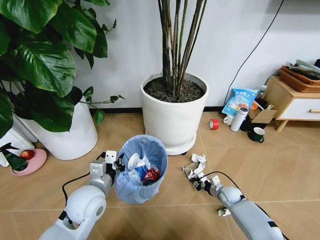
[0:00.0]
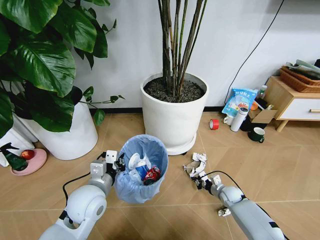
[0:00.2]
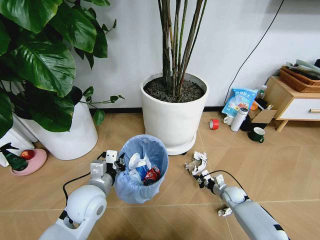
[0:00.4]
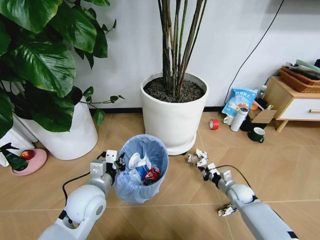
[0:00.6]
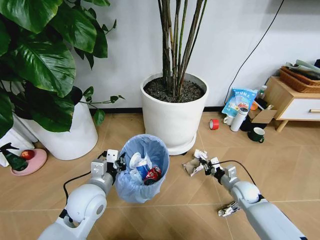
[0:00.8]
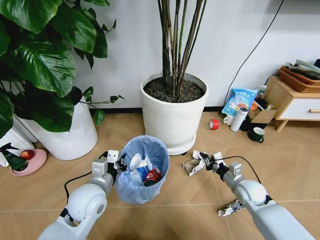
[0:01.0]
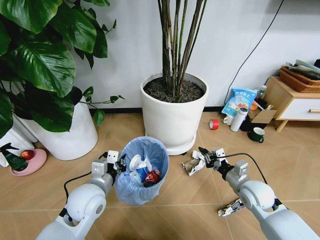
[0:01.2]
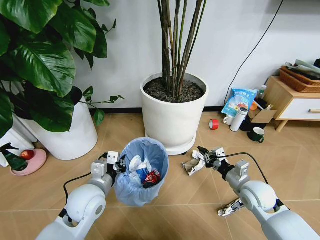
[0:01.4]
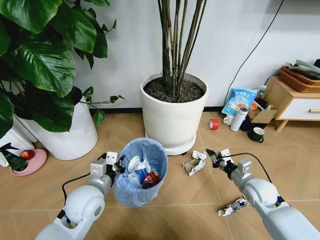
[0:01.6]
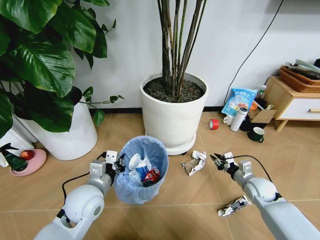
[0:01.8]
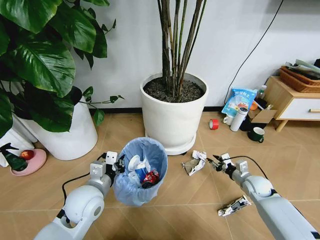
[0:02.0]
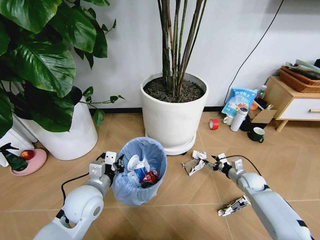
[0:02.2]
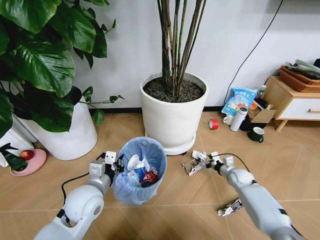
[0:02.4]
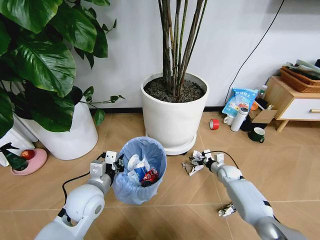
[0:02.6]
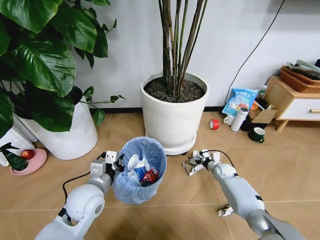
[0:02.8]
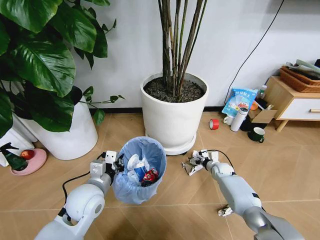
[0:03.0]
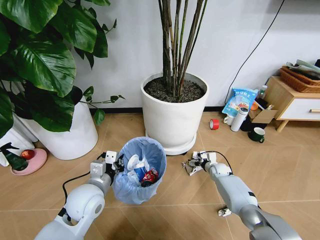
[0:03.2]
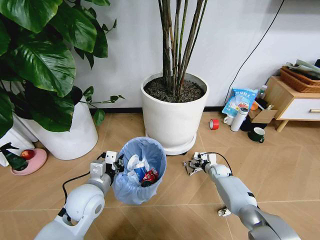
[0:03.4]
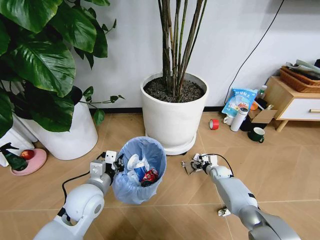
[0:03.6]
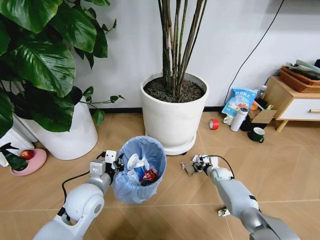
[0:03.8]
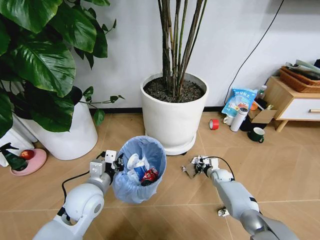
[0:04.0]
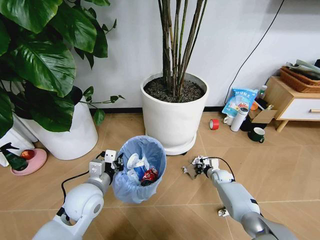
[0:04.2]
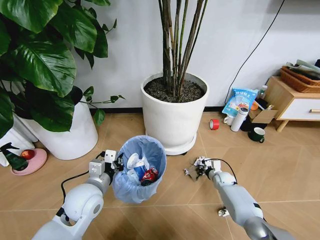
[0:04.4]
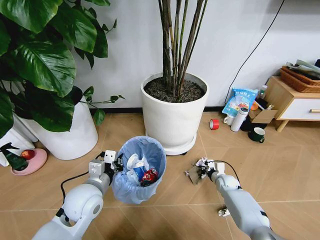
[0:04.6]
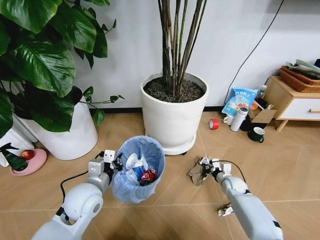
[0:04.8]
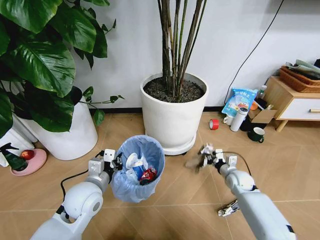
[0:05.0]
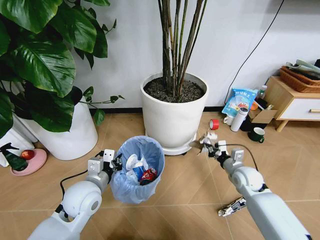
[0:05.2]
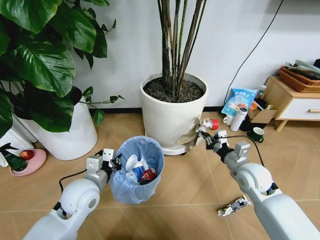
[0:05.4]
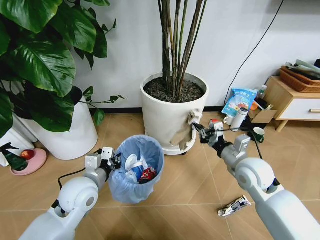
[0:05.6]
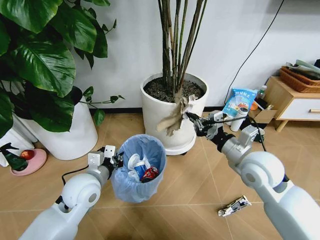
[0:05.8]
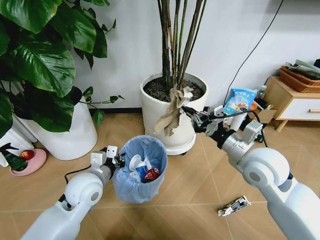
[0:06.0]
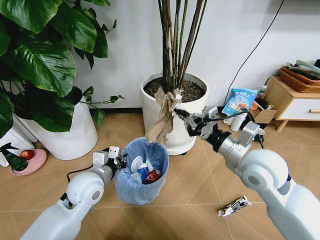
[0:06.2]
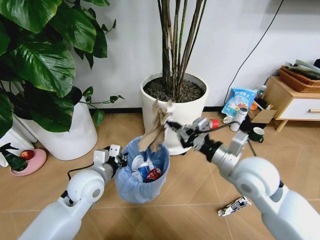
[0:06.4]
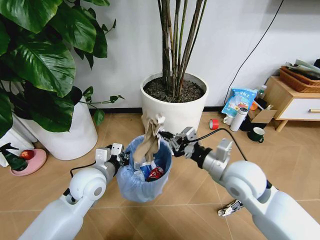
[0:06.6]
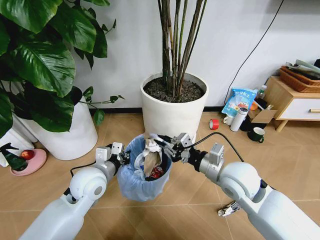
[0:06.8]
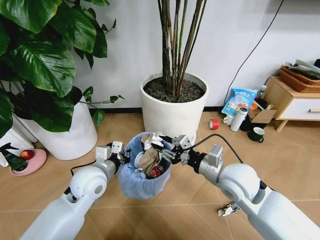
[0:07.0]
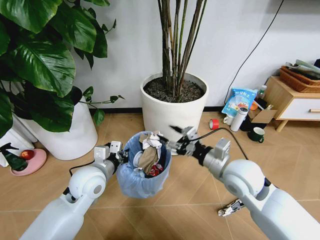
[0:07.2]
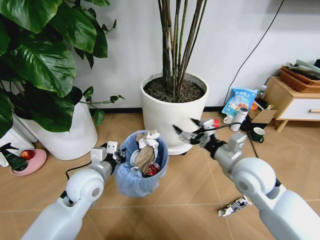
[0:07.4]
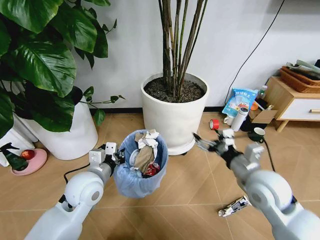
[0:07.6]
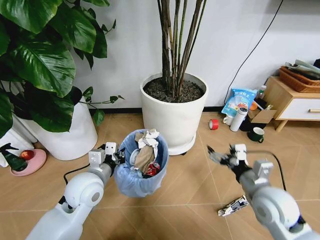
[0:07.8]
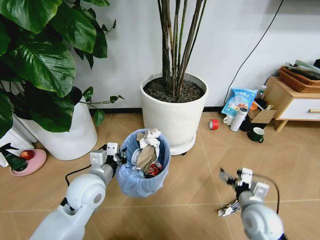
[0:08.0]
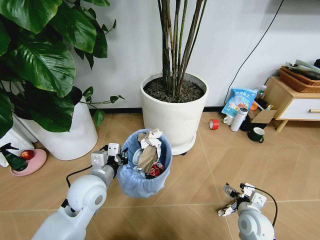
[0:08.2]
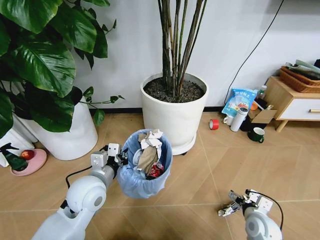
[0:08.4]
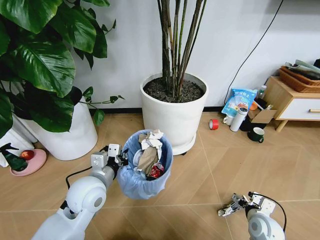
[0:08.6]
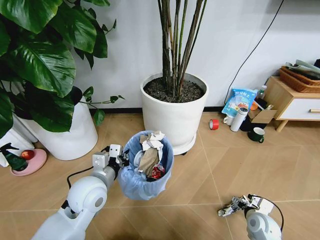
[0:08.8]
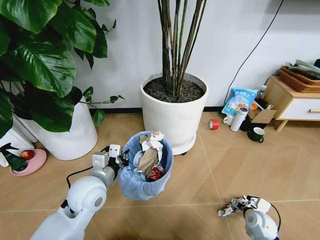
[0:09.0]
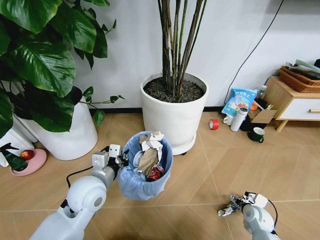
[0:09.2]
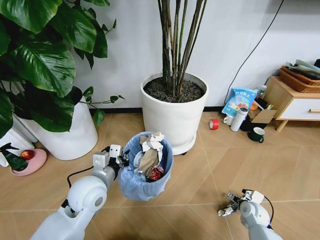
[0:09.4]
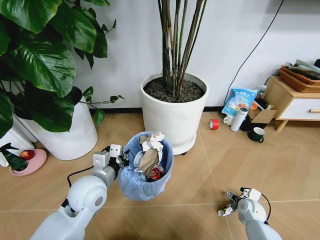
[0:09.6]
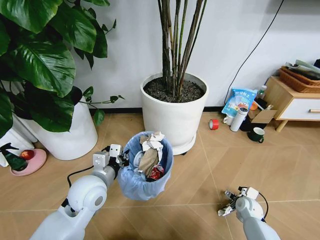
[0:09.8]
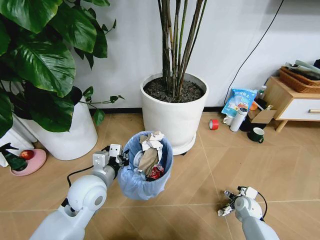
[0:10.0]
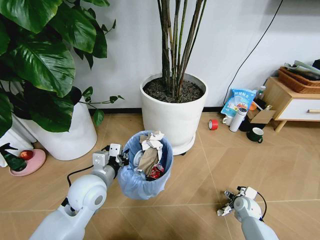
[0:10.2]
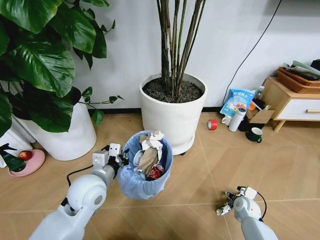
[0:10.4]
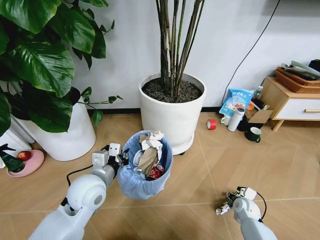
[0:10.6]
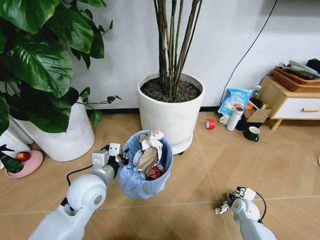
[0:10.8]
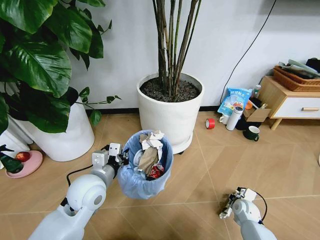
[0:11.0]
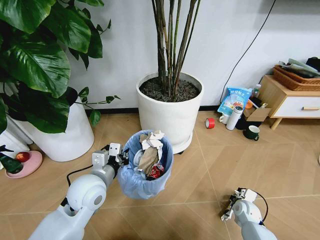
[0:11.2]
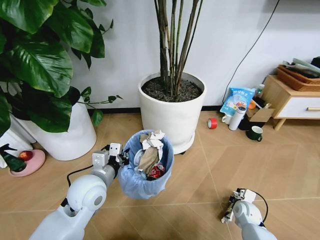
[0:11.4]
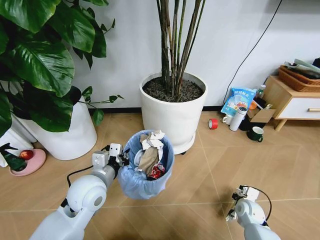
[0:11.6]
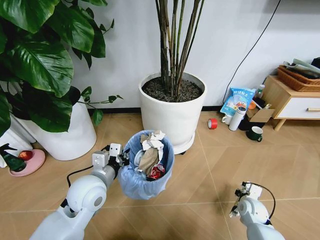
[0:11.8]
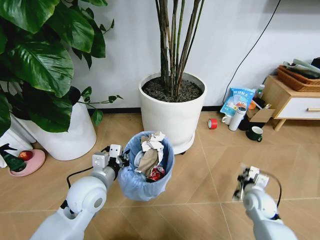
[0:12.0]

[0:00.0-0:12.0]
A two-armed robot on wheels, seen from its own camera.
Task of the whole recording: Pick up the trash bin and place the garbage on the floor into it.
0:00.0 to 0:01.6: The right gripper moves upward, approximately 20 cm.
0:01.6 to 0:03.0: The right gripper heads forward and downward, covering roughly 20 cm, and opens.
0:03.0 to 0:04.4: The right gripper closes.
0:04.4 to 0:06.0: The right gripper goes some 40 cm upward.
0:06.0 to 0:07.6: The right gripper shifts roughly 5 cm downward, and opens.
0:07.6 to 0:09.0: The right gripper is displaced downward by some 25 cm.
0:09.0 to 0:10.4: The right gripper goes about 5 cm forward.
0:10.4 to 0:12.0: The right gripper heads upward, covering some 10 cm, and closes up.

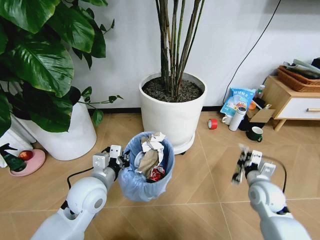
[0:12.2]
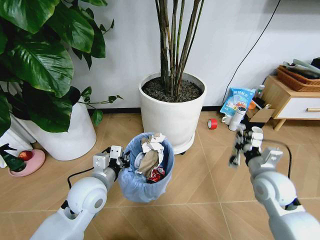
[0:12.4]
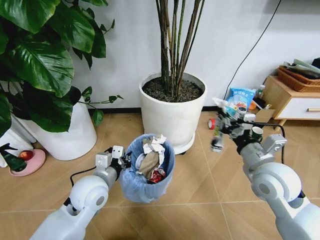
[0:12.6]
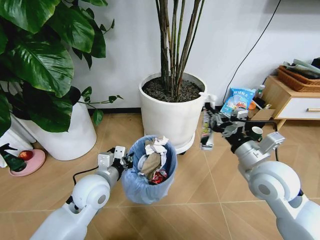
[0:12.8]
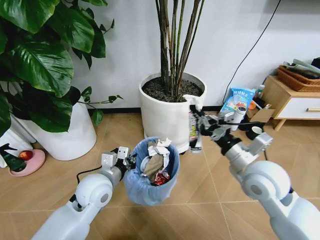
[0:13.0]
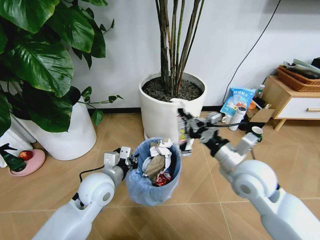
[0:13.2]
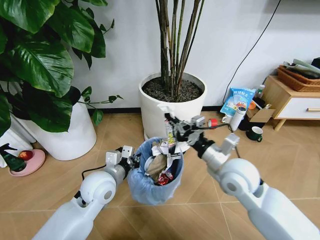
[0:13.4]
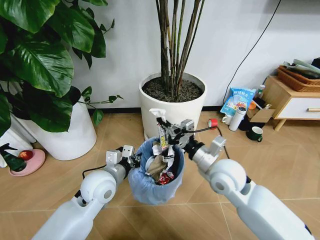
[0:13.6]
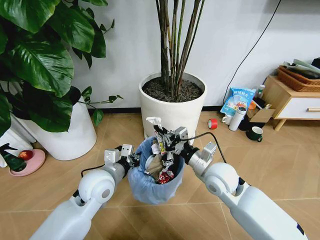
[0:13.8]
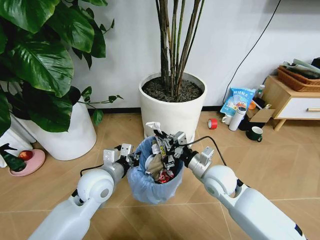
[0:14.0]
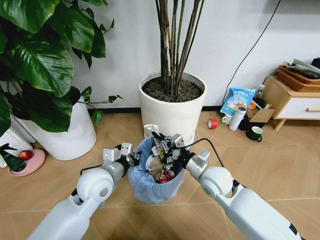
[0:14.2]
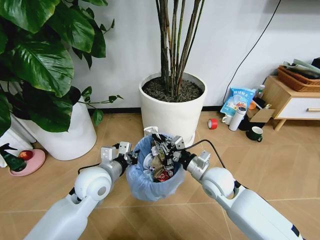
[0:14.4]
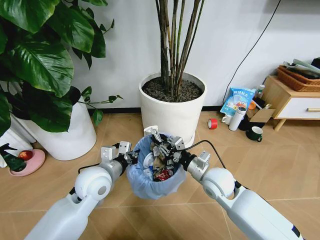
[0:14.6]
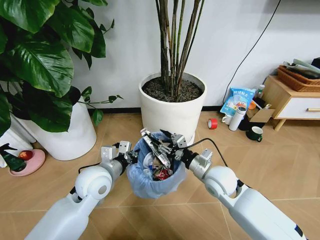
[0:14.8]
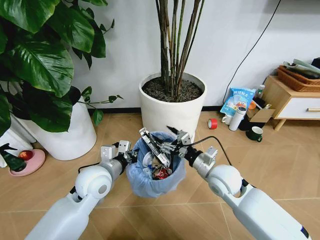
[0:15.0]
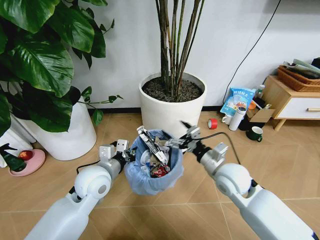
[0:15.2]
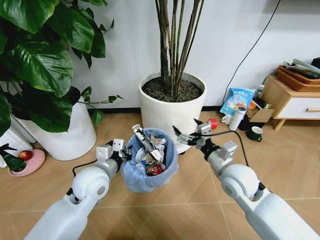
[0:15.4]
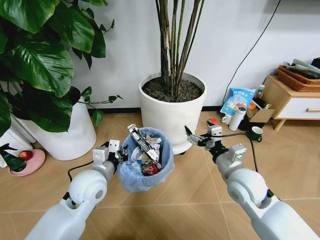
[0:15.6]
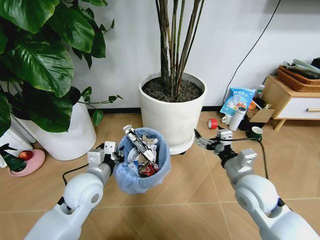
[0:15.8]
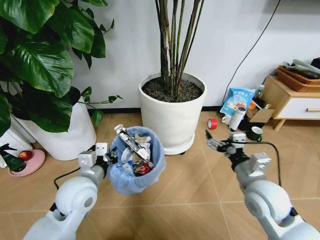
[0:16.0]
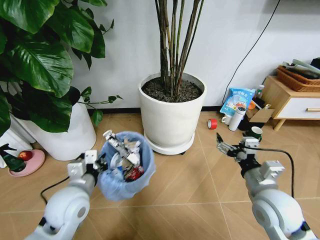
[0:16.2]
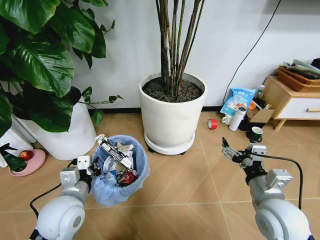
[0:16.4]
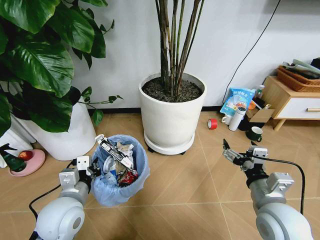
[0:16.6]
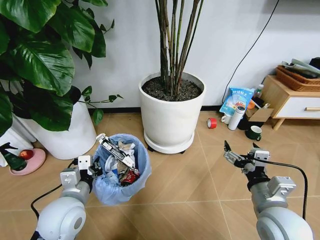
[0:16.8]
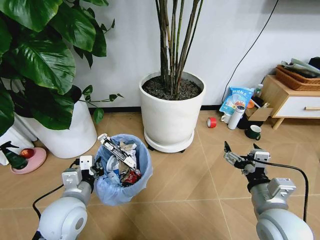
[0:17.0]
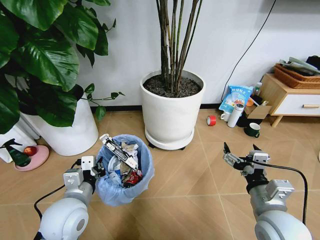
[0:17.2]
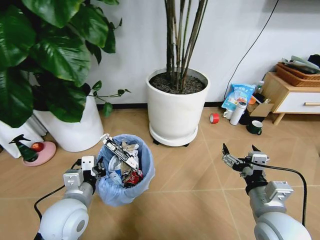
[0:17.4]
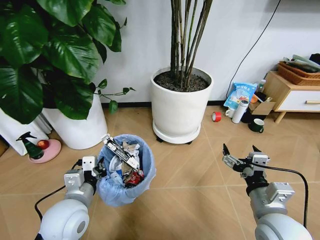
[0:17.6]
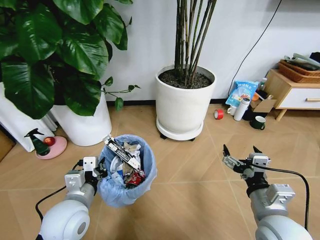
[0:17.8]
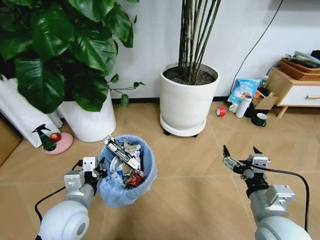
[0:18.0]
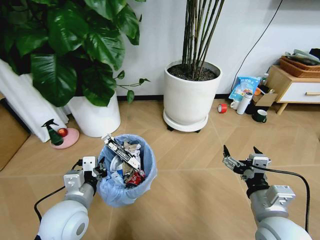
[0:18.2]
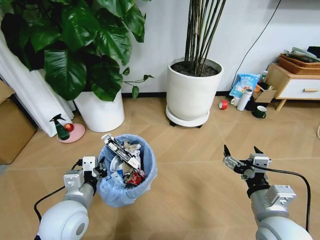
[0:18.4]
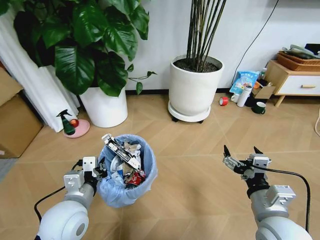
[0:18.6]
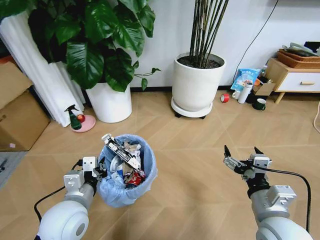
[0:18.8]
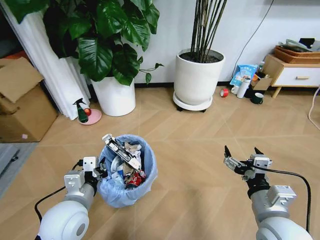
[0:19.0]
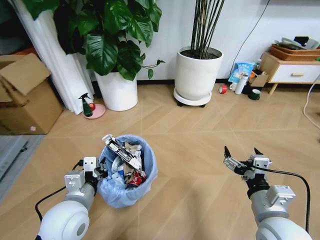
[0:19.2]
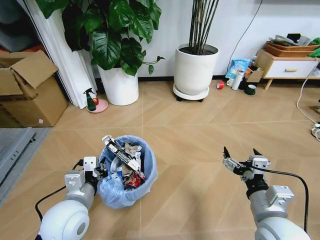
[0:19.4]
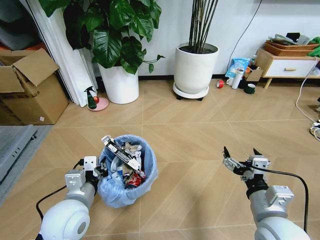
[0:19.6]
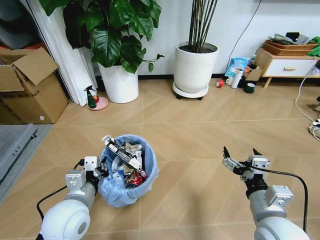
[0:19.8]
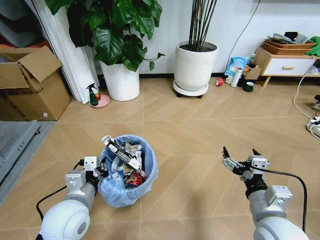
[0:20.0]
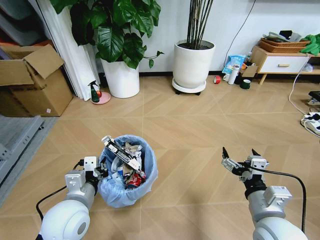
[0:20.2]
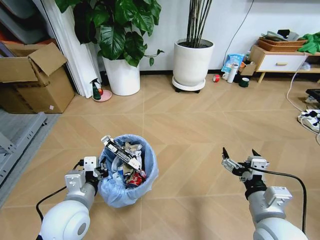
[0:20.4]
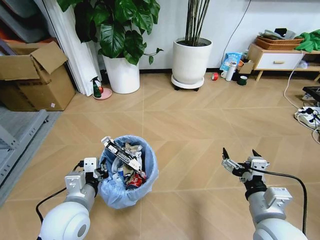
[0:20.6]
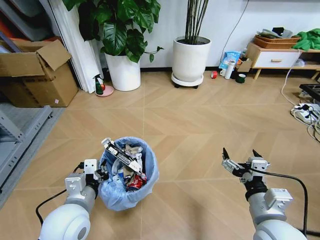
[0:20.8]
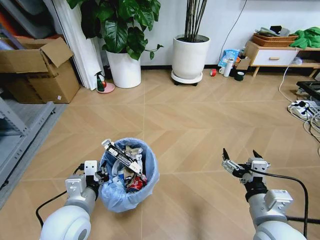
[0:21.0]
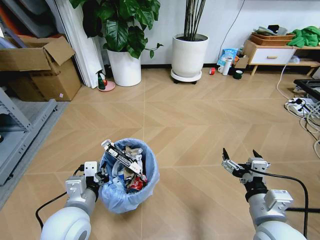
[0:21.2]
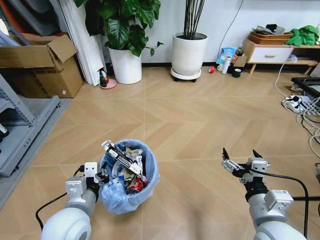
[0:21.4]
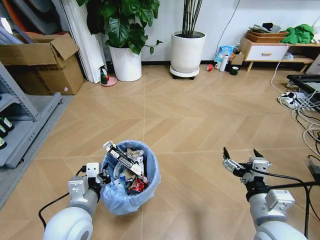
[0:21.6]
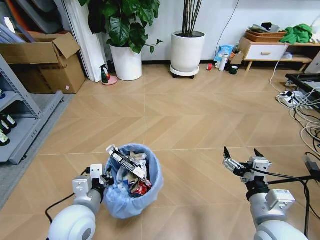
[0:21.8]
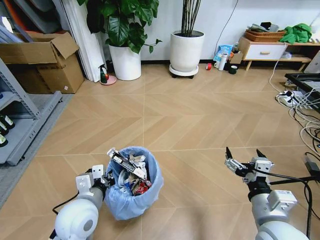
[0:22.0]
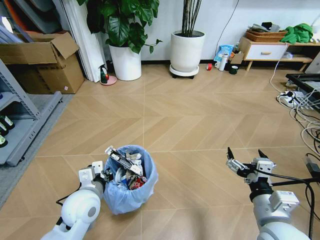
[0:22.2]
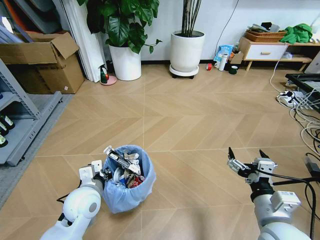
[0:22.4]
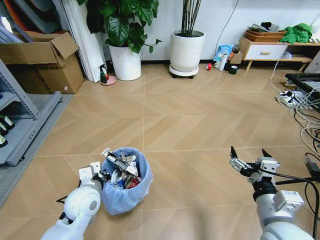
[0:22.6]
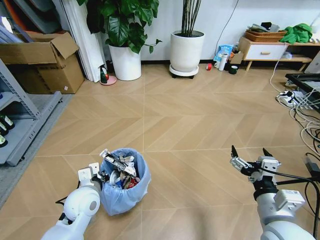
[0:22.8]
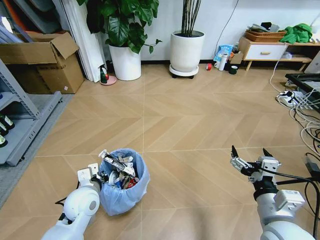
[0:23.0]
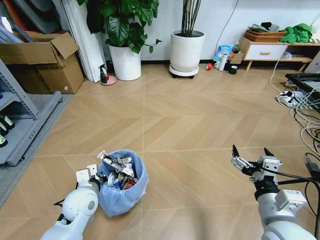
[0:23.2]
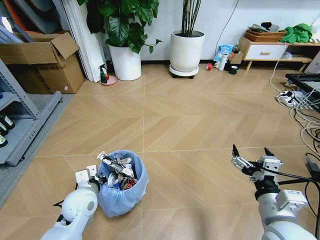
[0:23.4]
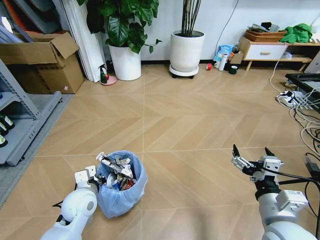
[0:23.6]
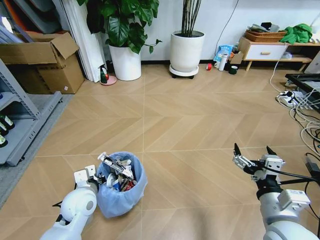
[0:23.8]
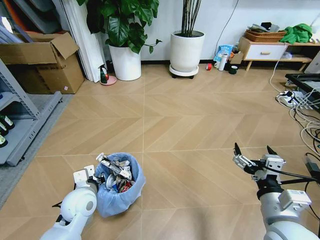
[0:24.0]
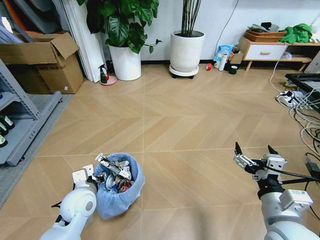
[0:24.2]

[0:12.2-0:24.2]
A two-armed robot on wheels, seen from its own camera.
Task of the whole recording: Pick up the trash bin and place the garbage on the floor into it.
0:12.2 to 0:13.8: The right gripper is displaced to the left and upward by roughly 20 cm.
0:13.8 to 0:15.2: The right gripper opens up.
0:15.2 to 0:16.6: The right gripper moves backward and to the right, about 15 cm, while the left gripper travels backward and to the left by roughly 10 cm.
0:21.2 to 0:22.6: The left gripper moves forward and downward, roughly 10 cm.
0:22.6 to 0:24.2: The left gripper opens its fingers.
